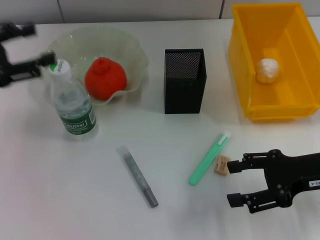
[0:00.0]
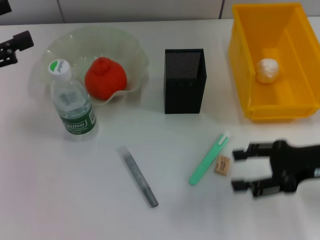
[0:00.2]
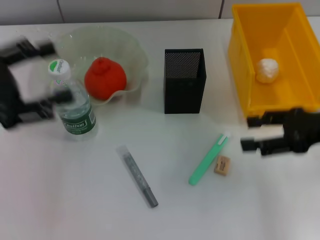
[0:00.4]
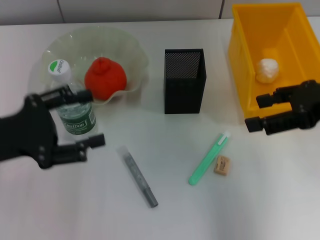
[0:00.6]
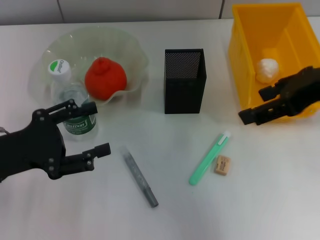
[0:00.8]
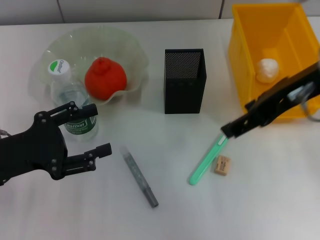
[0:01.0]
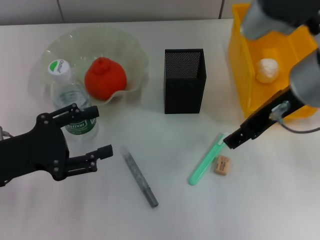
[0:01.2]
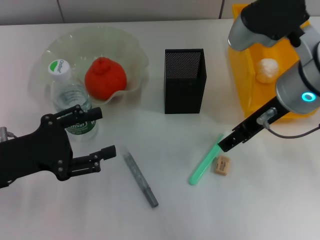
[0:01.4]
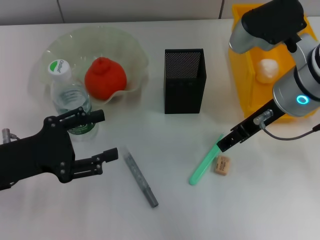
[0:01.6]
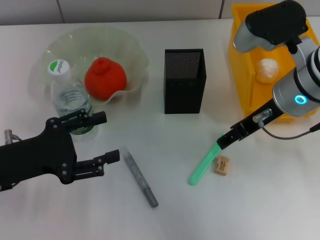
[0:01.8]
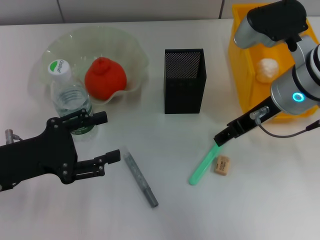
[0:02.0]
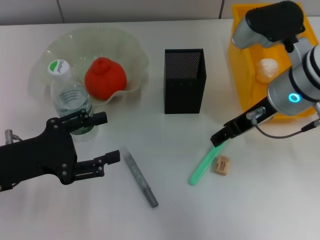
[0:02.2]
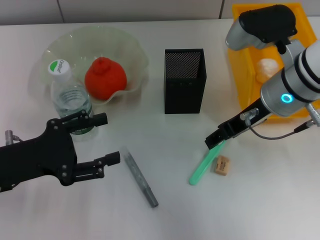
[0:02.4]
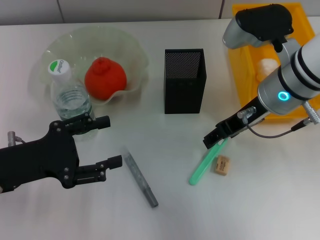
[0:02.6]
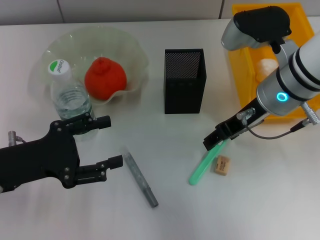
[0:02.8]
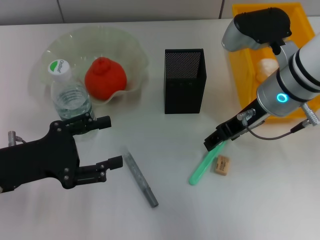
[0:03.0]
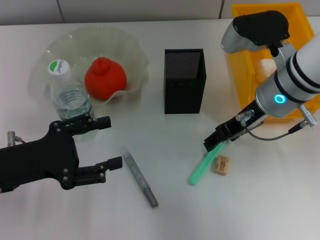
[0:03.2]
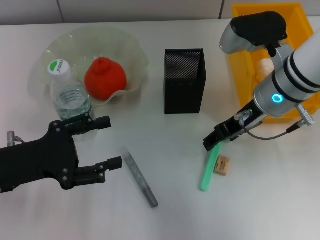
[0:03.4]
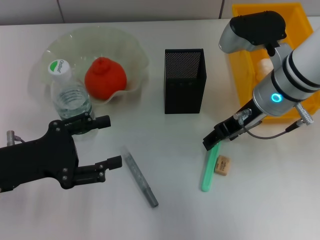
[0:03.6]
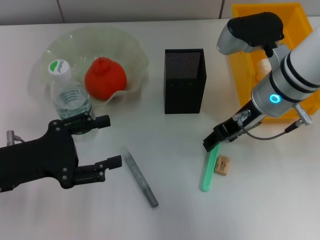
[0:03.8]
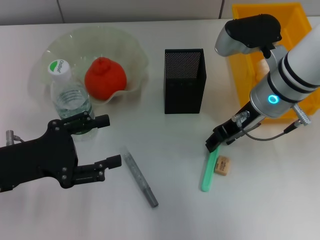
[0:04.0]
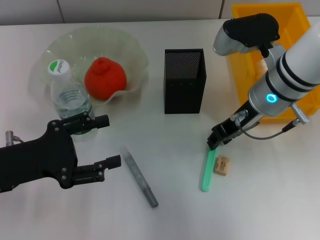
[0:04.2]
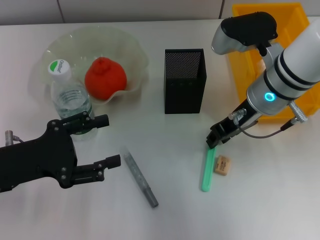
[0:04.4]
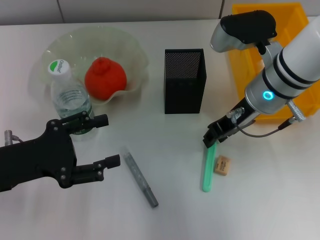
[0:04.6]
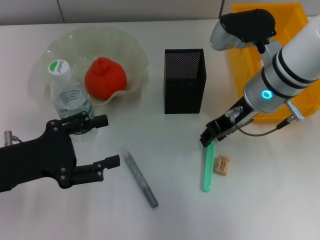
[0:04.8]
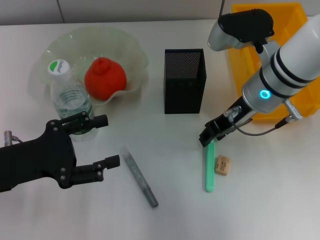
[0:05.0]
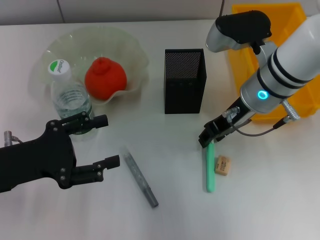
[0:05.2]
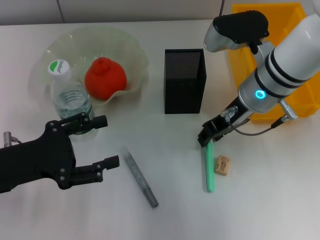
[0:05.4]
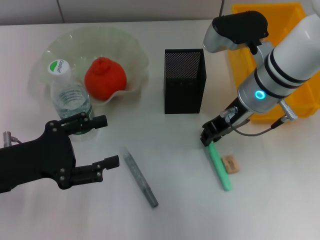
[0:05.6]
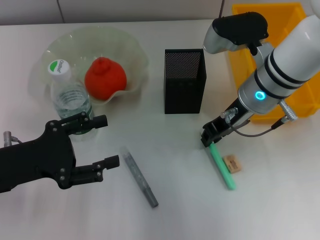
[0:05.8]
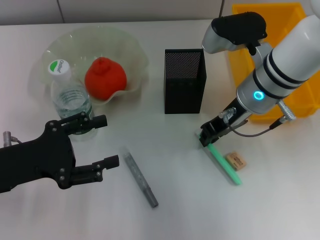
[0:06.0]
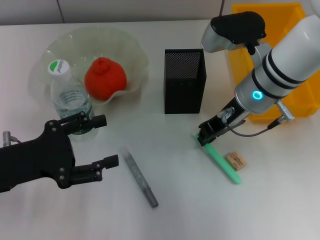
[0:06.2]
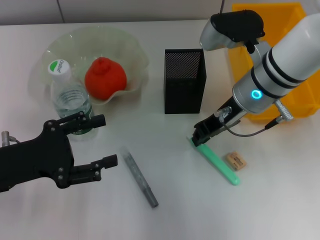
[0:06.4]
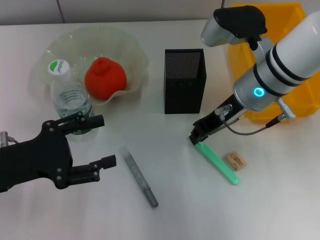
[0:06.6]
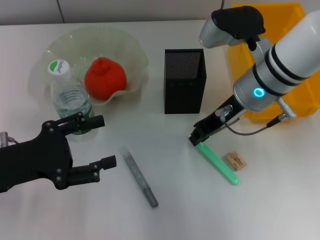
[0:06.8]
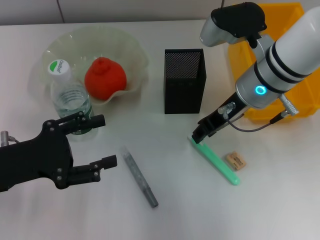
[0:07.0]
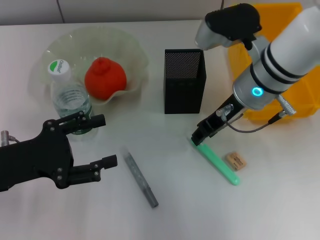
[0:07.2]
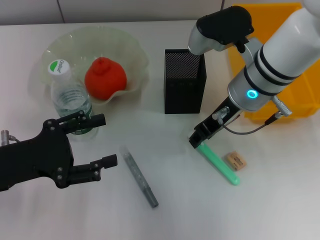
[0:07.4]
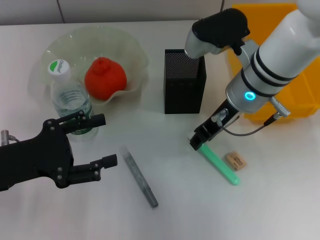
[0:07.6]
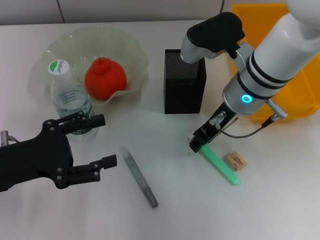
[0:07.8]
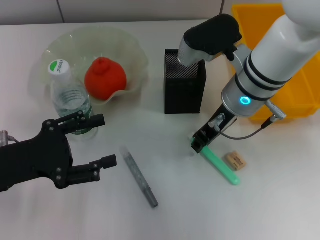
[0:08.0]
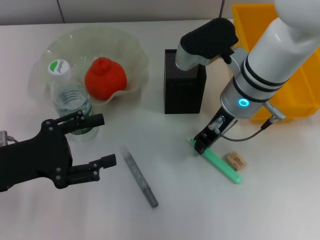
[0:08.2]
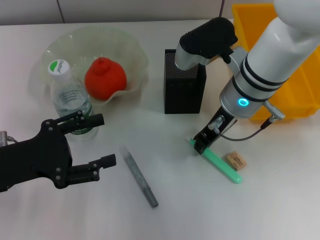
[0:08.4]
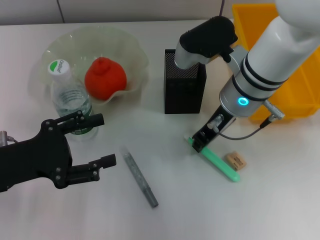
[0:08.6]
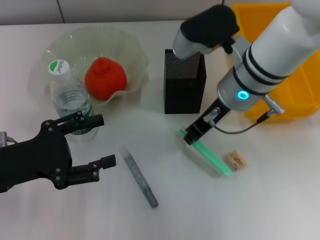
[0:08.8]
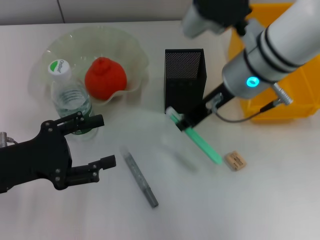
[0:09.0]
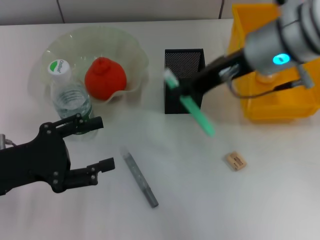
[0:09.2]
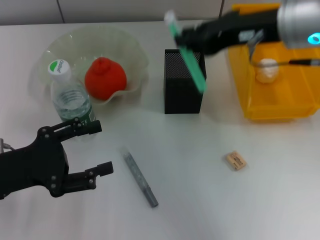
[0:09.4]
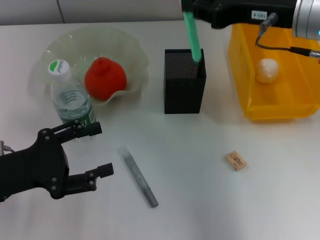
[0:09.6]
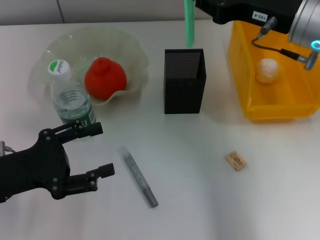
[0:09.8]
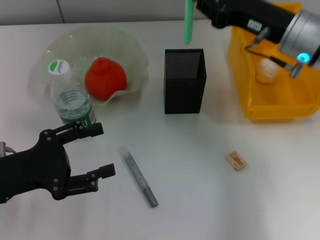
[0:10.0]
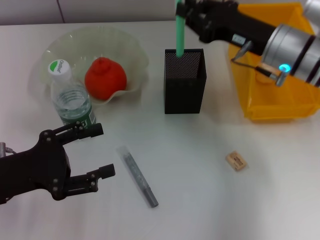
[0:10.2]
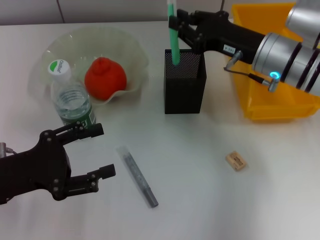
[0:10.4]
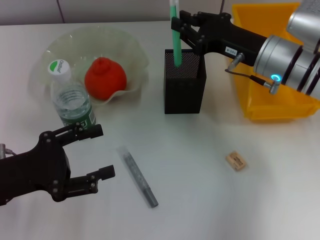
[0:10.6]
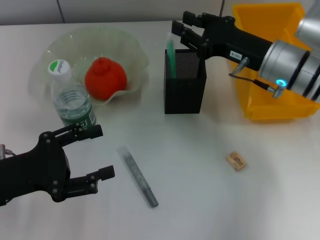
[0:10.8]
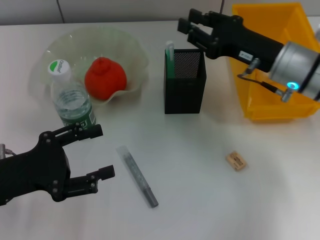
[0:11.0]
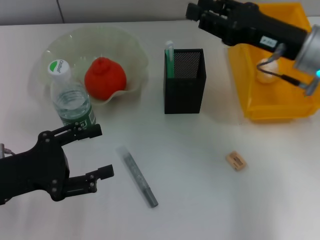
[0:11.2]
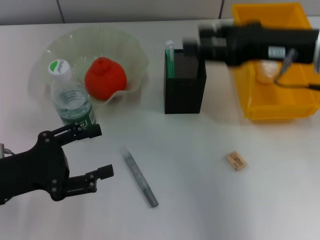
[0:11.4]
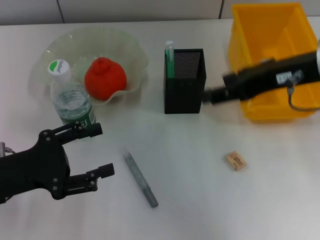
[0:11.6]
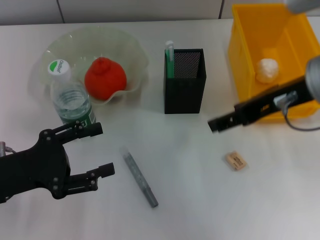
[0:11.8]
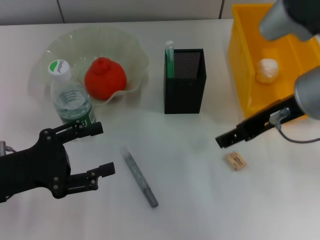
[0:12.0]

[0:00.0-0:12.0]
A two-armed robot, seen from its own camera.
Step, 0:00.2 to 0:08.4: Grab the blue utility knife with the right hand.
Step, 0:08.6 to 0:11.0: Place the blue utility knife into the pen holder with the right hand.
0:00.0 to 0:01.6: The right gripper heads to the left, upward and forward, covering about 15 cm; the left gripper shifts roughly 10 cm downward, to the right and backward.
0:01.6 to 0:03.0: The grippers stay close to where they were, moving slightly.
0:03.0 to 0:04.4: The right gripper closes its fingers.
0:04.4 to 0:06.0: Both grippers stay about where they are.
0:06.0 to 0:09.0: The grippers make only small movements.
0:09.0 to 0:10.4: The right gripper shifts roughly 10 cm to the right and downward.
0:10.4 to 0:12.0: The right gripper goes approximately 10 cm upward and backward, and opens up.

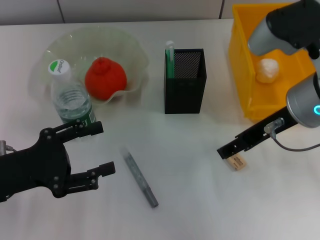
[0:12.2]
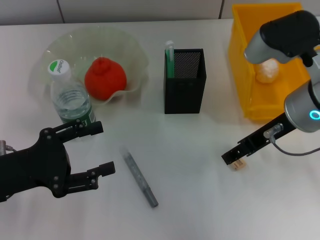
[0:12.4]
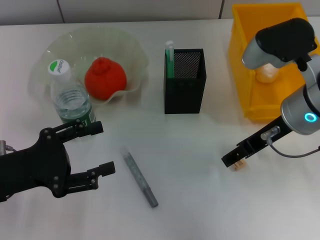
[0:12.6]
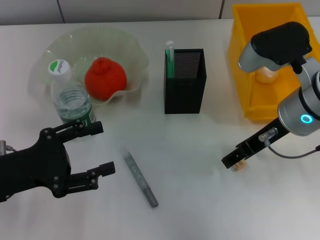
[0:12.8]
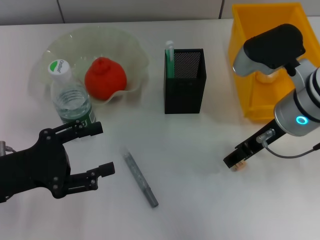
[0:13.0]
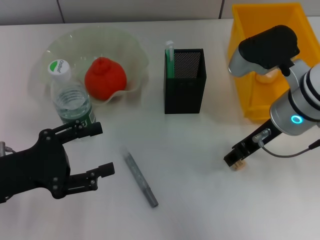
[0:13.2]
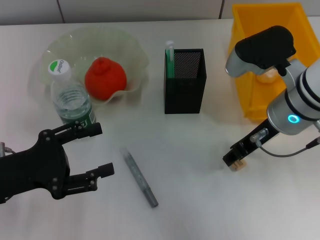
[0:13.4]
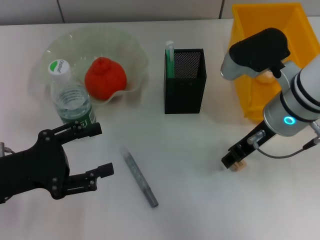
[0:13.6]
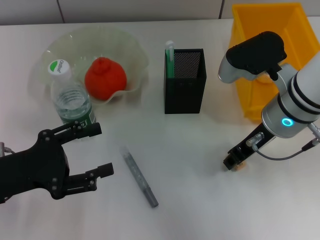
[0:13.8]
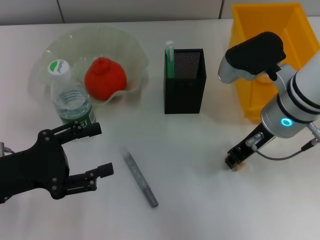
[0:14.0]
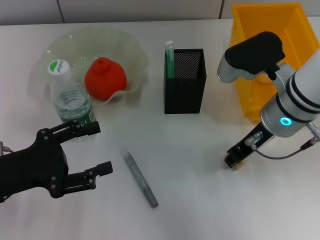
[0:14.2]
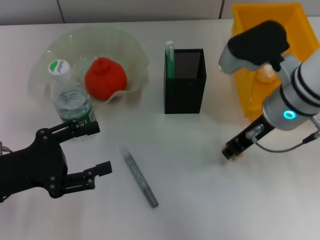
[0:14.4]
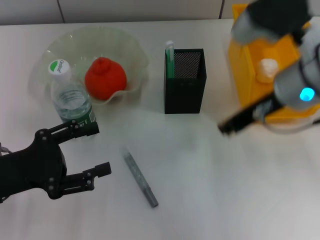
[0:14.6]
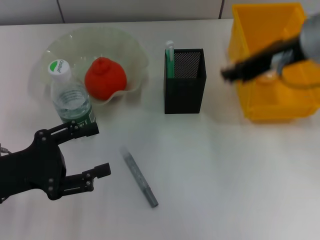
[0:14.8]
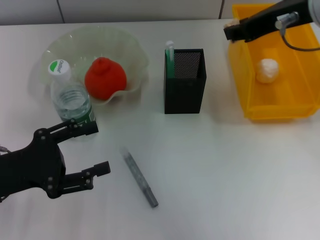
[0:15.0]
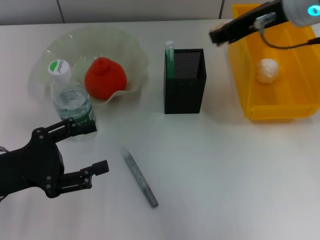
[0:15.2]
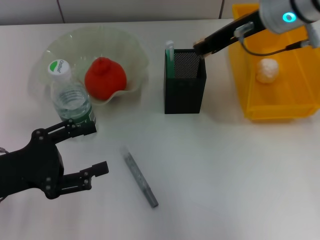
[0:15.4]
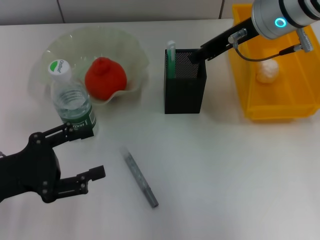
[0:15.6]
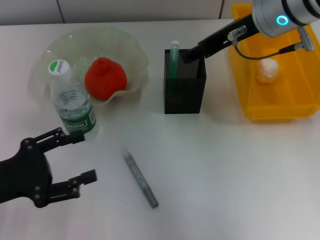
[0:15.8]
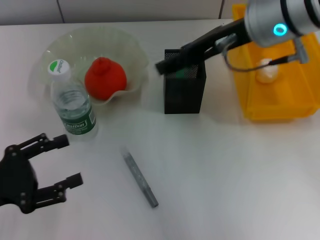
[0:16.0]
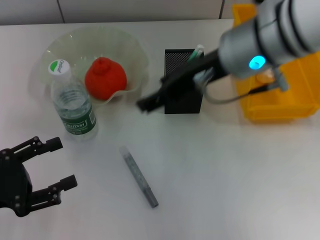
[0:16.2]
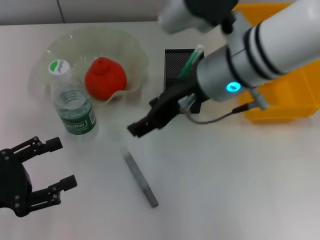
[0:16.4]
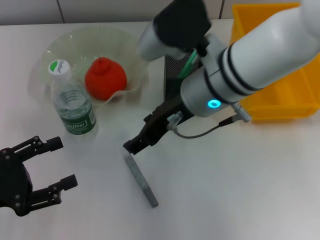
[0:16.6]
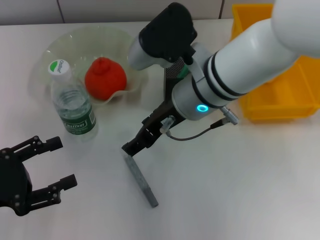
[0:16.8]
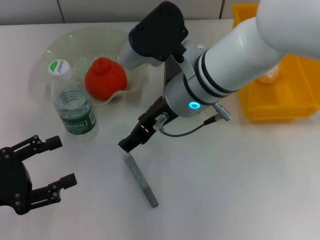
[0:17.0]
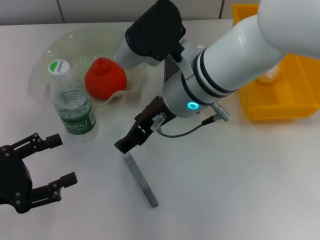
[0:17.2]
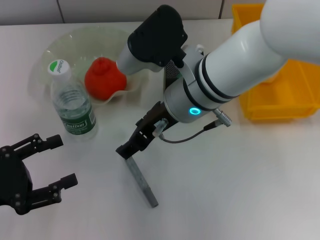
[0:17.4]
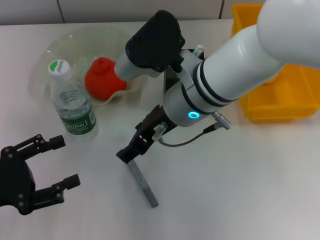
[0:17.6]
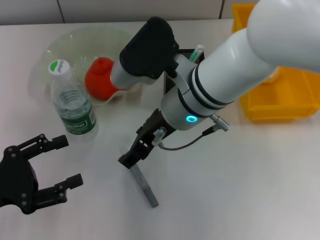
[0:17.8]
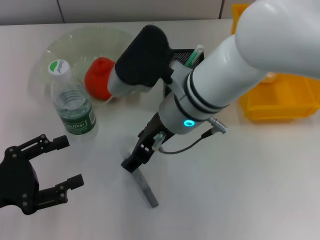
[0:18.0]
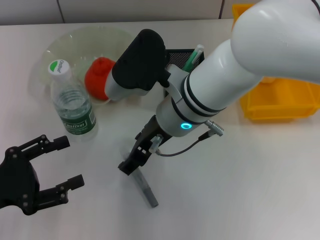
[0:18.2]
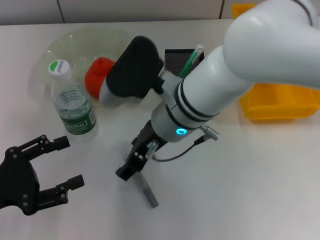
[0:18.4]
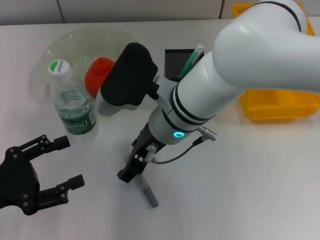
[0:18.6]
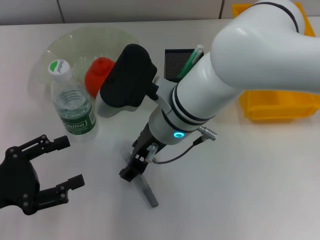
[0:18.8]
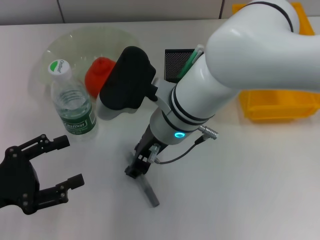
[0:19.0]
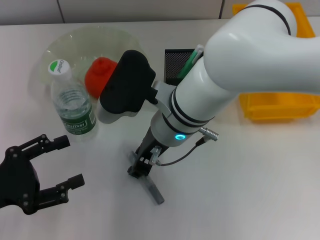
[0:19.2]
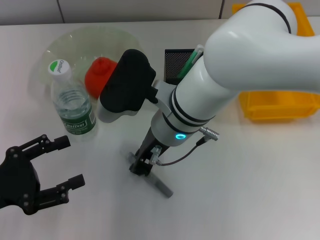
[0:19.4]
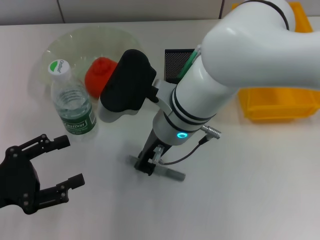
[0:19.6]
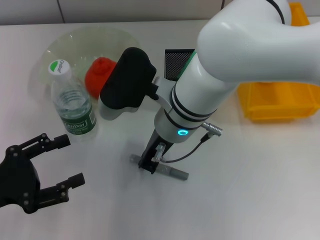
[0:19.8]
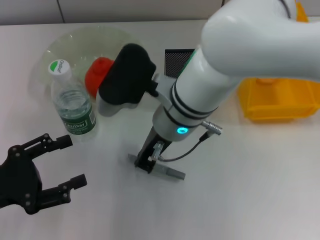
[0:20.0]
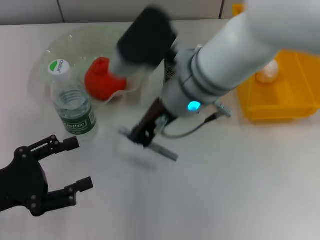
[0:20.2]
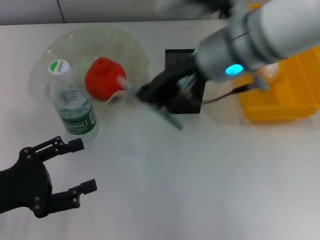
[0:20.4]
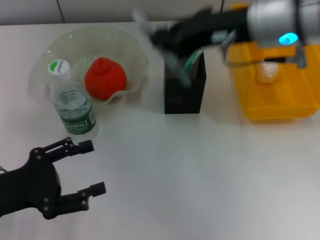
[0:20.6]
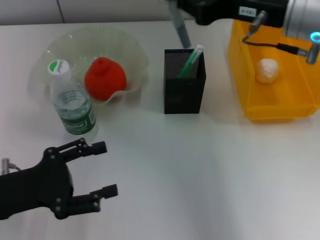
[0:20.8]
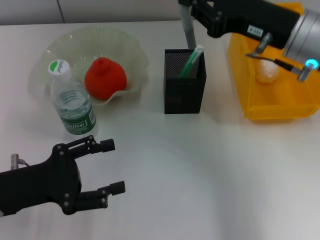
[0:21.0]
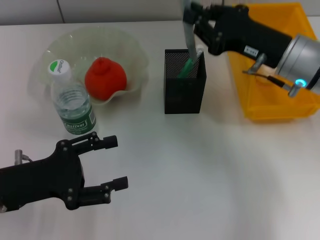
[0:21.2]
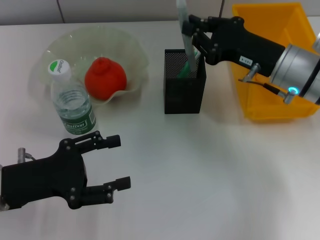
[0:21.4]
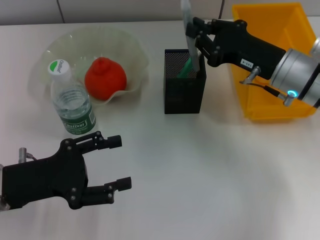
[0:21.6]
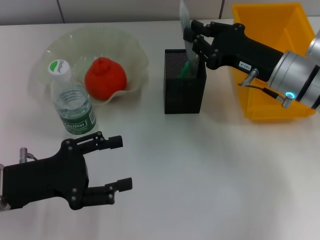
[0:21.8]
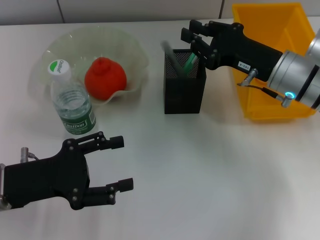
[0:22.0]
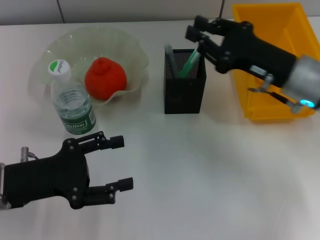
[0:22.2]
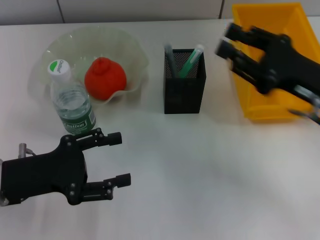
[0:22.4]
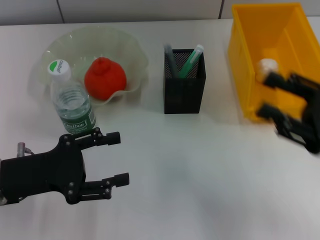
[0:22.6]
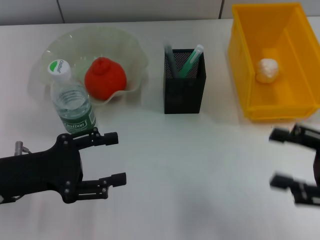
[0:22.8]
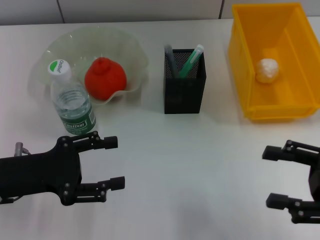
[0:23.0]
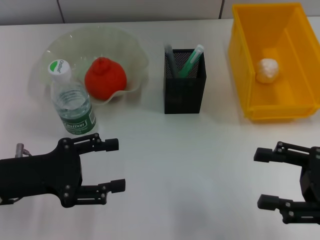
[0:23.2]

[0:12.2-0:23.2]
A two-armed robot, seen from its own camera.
Step, 0:12.2 to 0:14.0: Grab the eraser with the right hand.
Step, 0:14.2 to 0:15.8: Put the eraser into the pen holder with the right hand.
Step, 0:16.0 to 0:19.8: Grab the gray glue with the right hand.
Step, 0:20.0 to 0:22.2: Place the gray glue into the pen holder with the right hand.
0:12.2 to 0:13.8: The right gripper goes about 5 cm downward, and closes its fingers.
0:13.8 to 0:15.4: The right gripper is displaced upward and forward by approximately 10 cm.
0:15.4 to 0:17.0: The right gripper is displaced to the left, downward and backward by roughly 15 cm, and opens up.
0:18.4 to 0:20.0: The right gripper closes.
0:20.0 to 0:21.6: The left gripper is displaced to the right by roughly 5 cm. Meanwhile the right gripper goes roughly 20 cm to the right.
0:21.6 to 0:23.2: The right gripper is displaced backward and to the right by roughly 20 cm, and opens up.
